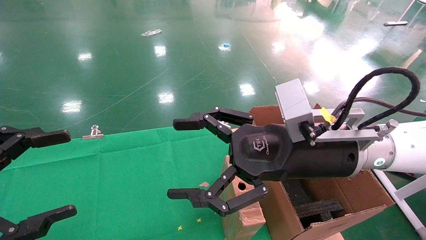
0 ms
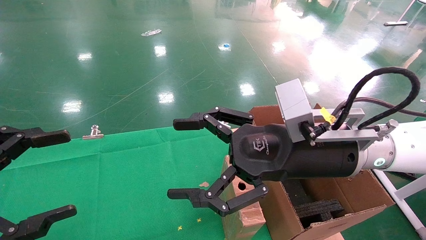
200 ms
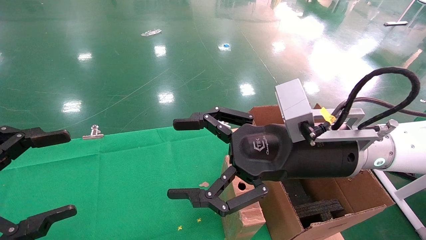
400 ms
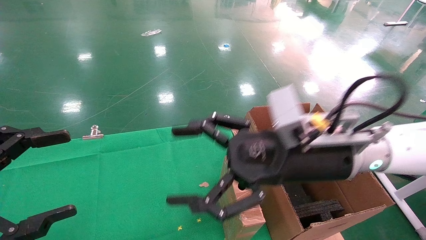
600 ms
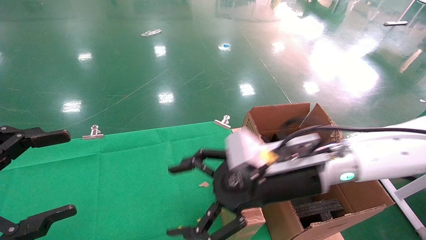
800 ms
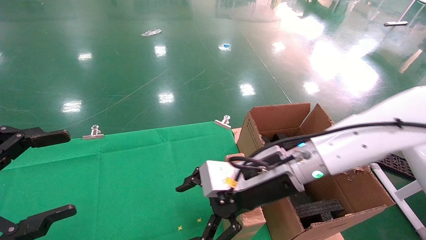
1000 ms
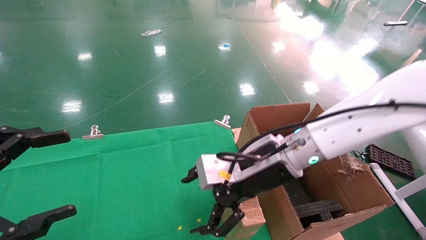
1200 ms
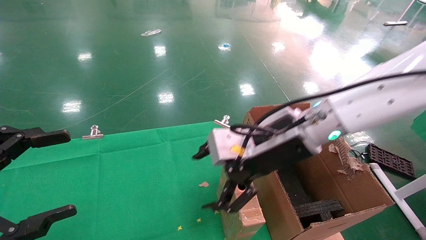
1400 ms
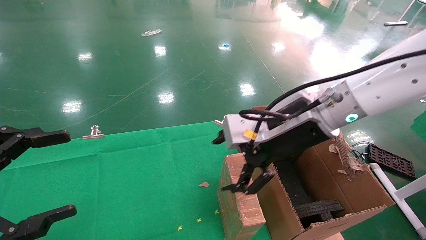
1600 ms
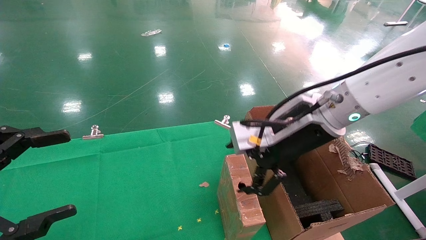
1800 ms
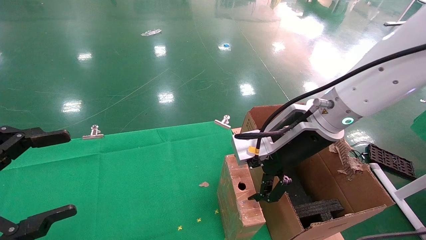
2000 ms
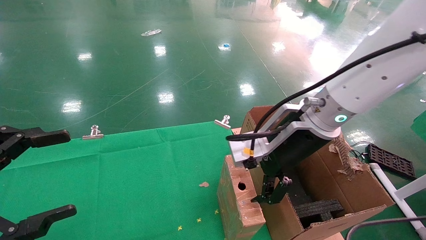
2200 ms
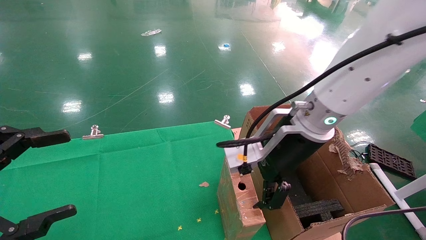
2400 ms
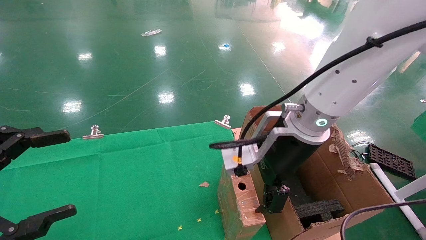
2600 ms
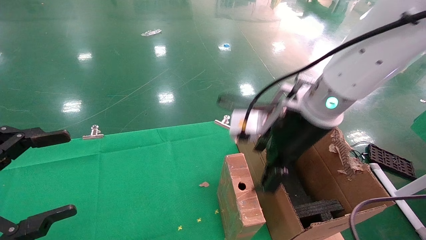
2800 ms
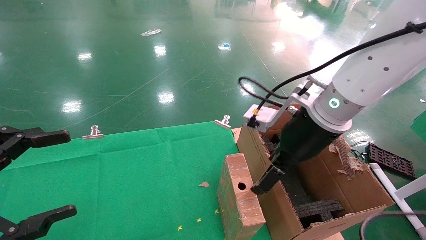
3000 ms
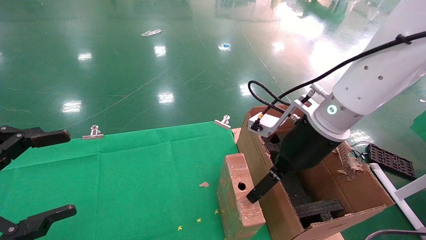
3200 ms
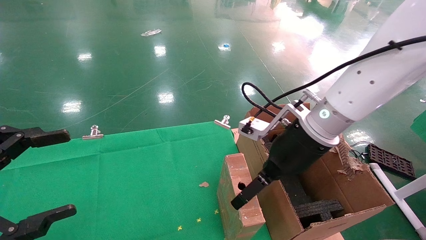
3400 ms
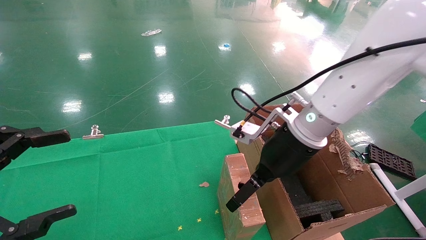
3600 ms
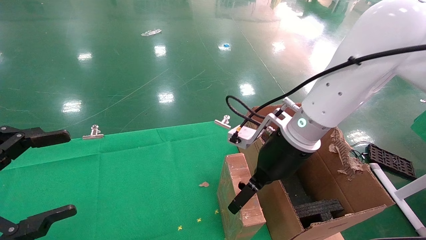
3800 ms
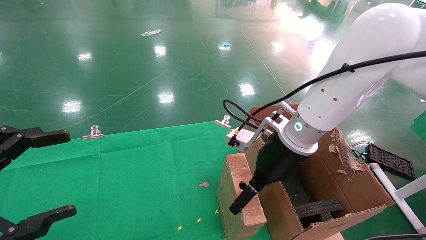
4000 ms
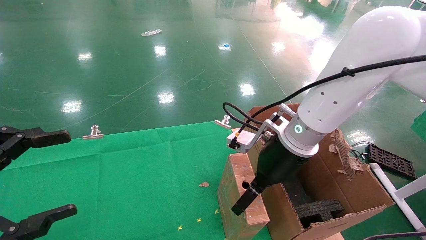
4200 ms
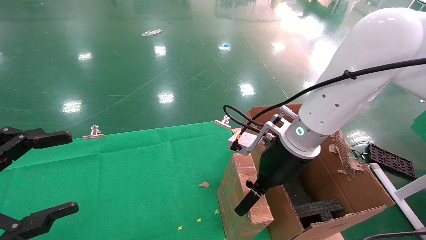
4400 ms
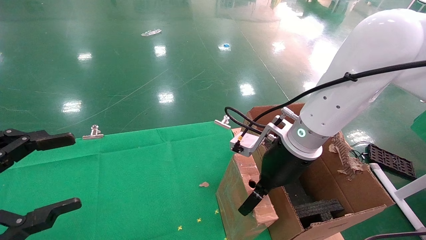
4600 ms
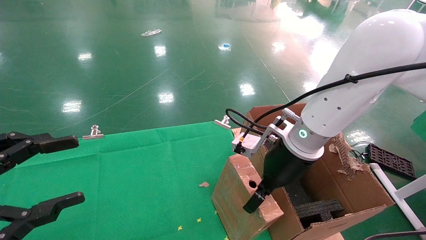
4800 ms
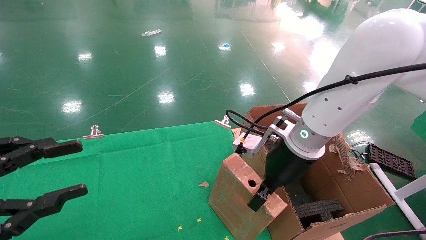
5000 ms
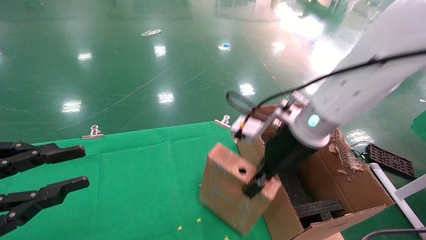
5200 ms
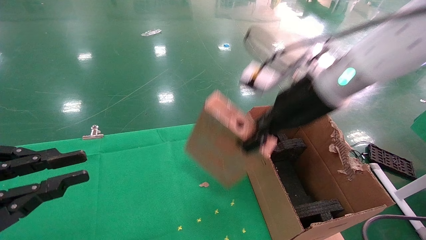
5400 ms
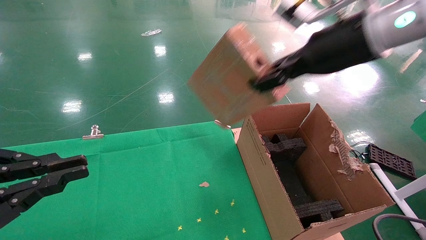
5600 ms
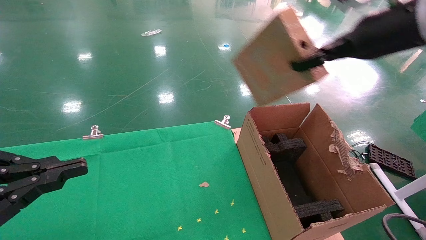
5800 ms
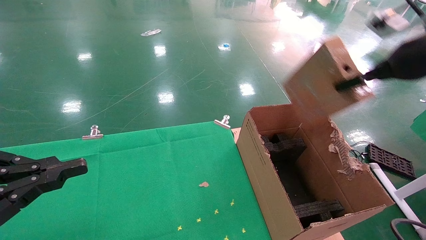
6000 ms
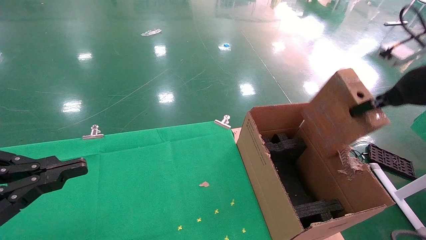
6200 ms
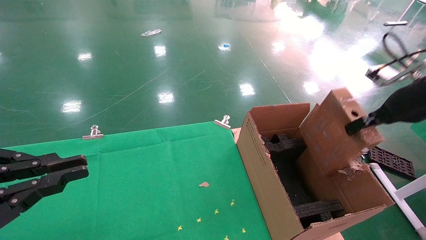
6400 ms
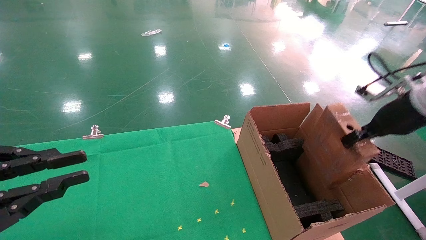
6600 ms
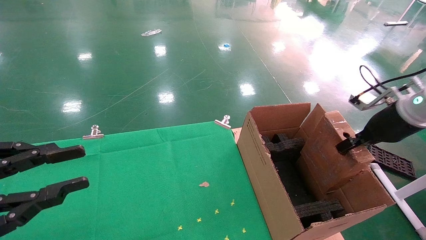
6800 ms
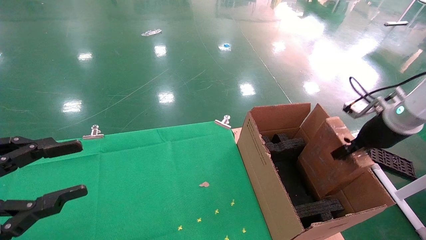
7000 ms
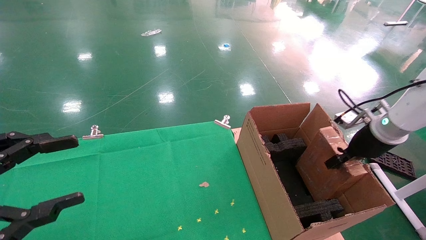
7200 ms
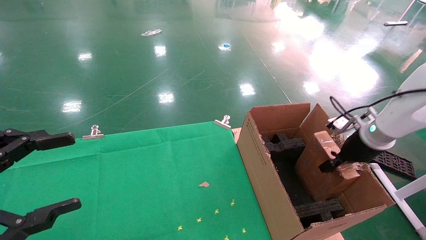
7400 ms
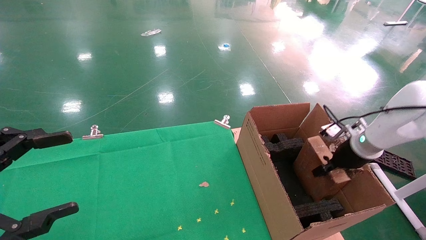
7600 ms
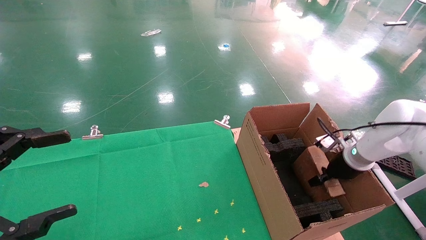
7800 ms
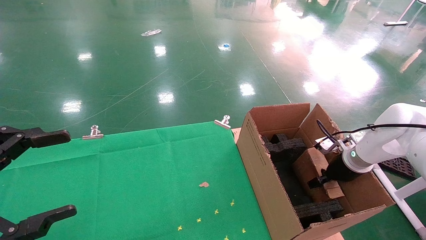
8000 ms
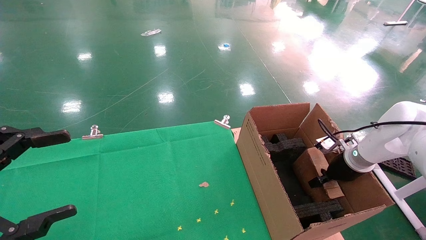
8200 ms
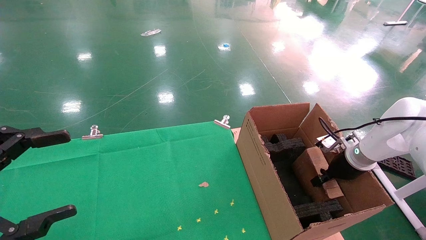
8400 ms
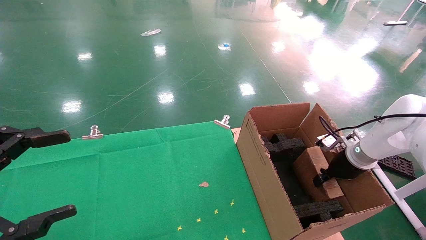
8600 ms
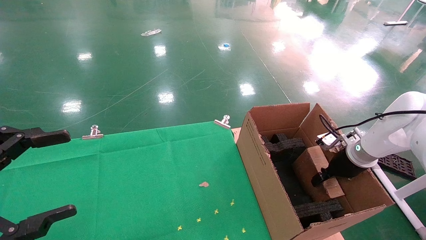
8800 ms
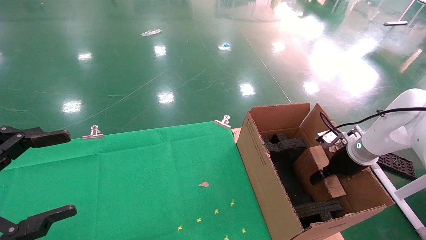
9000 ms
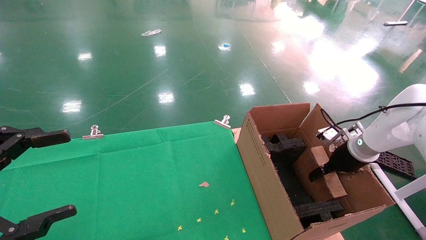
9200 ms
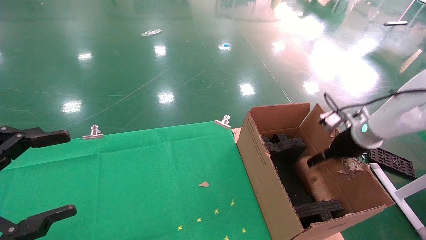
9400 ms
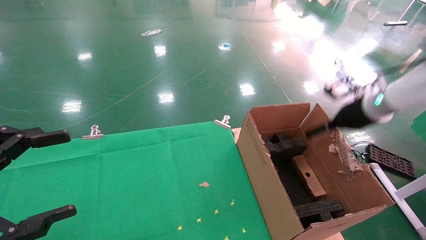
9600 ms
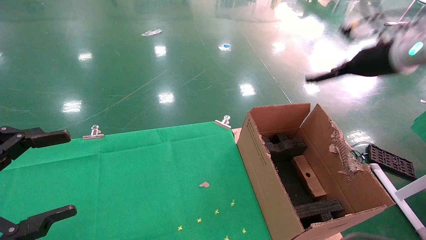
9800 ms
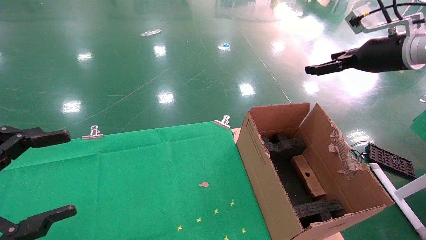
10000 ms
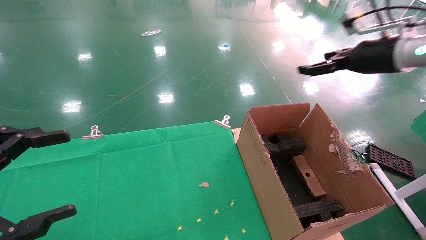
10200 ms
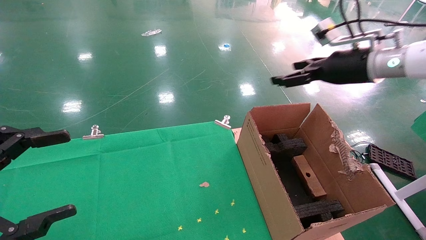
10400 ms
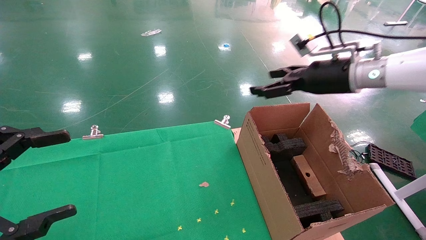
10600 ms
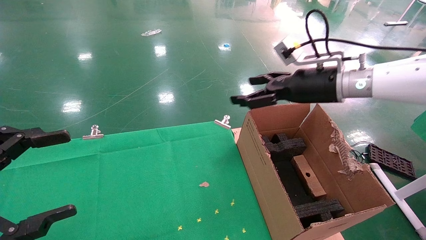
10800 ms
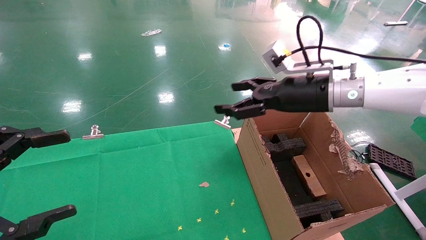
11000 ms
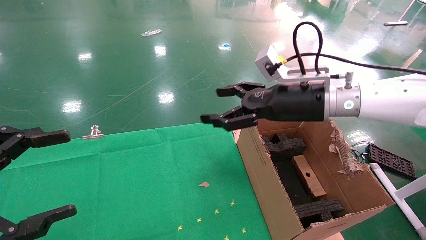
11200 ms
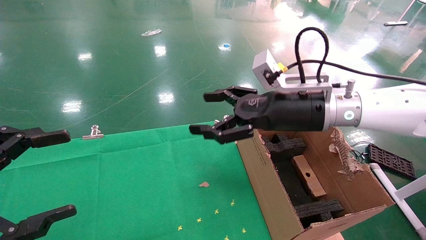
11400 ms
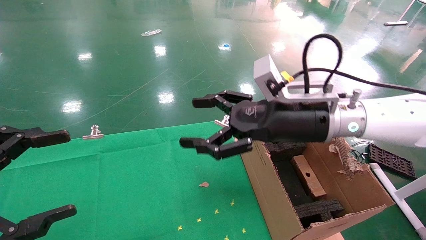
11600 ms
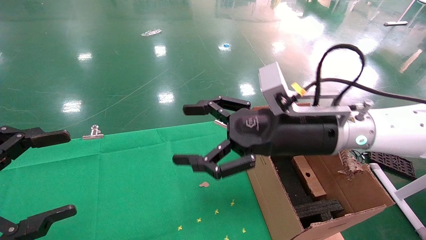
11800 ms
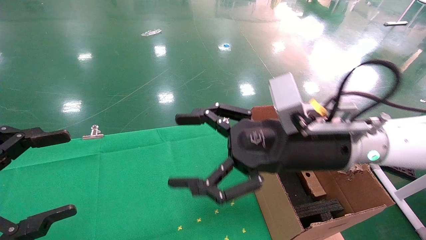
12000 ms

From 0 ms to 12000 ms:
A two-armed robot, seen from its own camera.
Task of the whole recording: using a robotic arm to pick up a cardboard box and palace it the carton.
Step, from 800 ms to 4800 ms: Pick up the mouse and the power cord paper box.
Step, from 5000 ms to 9400 ms: Place the mouse and the power cord paper box into the container.
From 0 ms to 1600 ms: The right gripper moves about 5 cm.
From 3000 ms to 4400 ms: The right gripper heads downward, covering approximately 5 cm.
From 4400 ms to 6000 ms: The right gripper heads to the right and upward, covering some 25 cm, and closes its fingers. Meanwhile the left gripper closes its fingers.
From 6000 ms to 7600 ms: The left gripper opens up; the right gripper is displaced downward and forward by approximately 25 cm.
From 7600 ms to 9000 ms: The right gripper opens.
From 9000 ms to 10400 ms: The right gripper goes about 20 cm upward, and opens its fingers.
From 10400 ms to 12000 ms: The right gripper goes some 25 cm to the left, backward and downward.

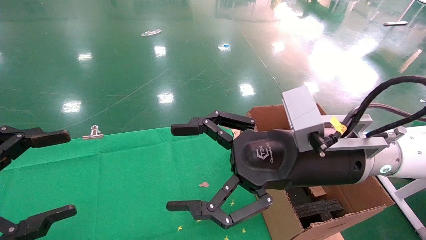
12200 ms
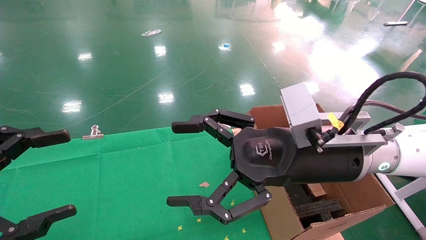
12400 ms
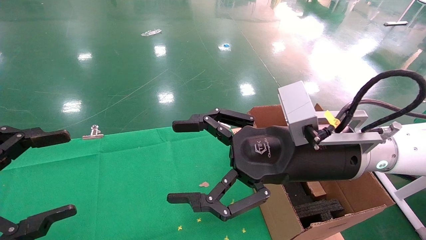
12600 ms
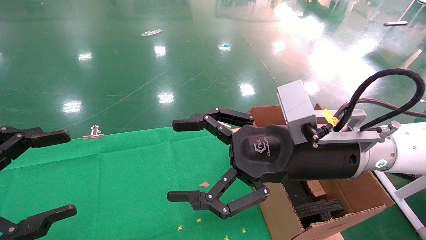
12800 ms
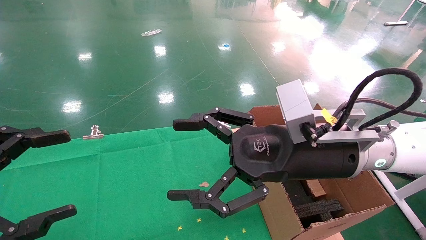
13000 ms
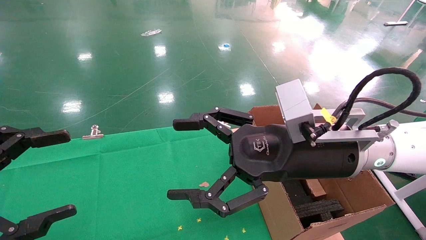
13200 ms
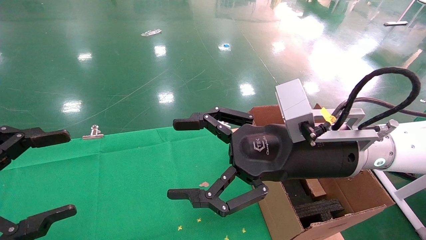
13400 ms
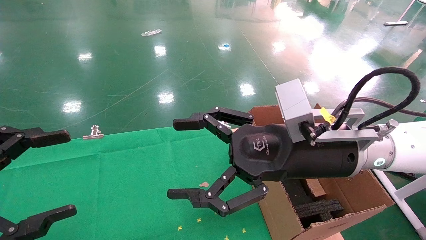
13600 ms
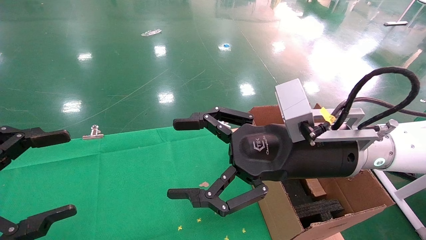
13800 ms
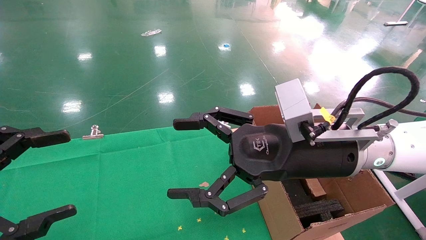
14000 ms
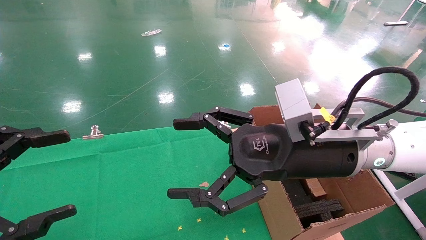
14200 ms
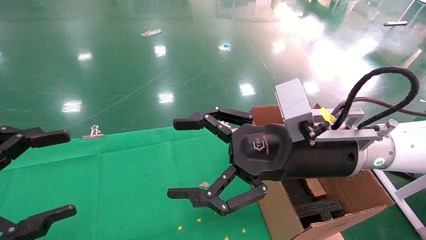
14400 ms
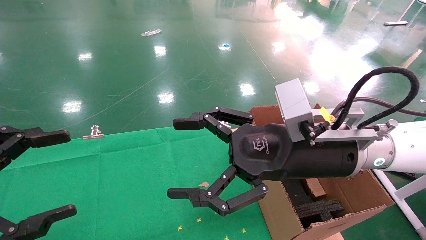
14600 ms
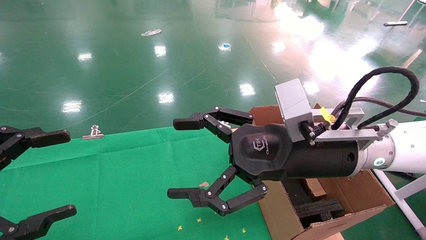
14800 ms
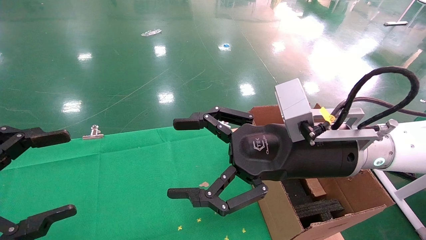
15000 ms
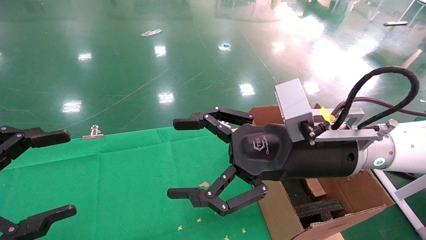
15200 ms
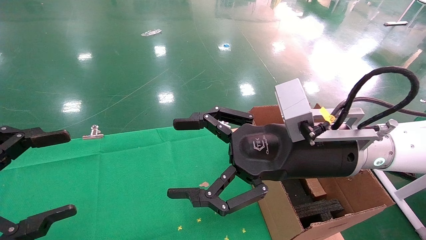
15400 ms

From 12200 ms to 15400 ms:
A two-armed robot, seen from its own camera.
Task of the whole recording: using a robotic arm to pick up a cardboard box and palace it the carton.
From 12200 ms to 15400 ms: Both grippers stay about where they are.
